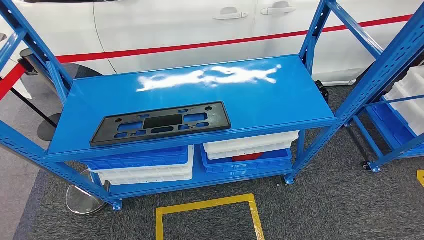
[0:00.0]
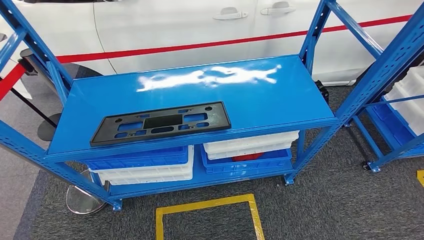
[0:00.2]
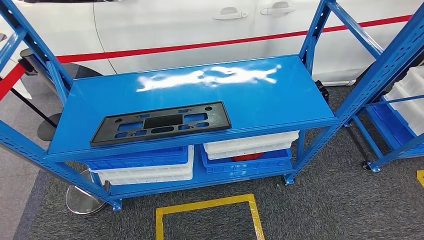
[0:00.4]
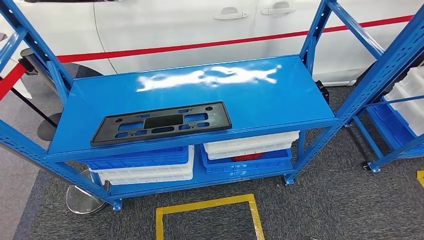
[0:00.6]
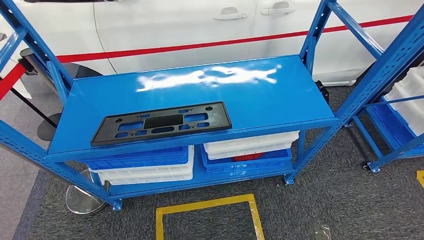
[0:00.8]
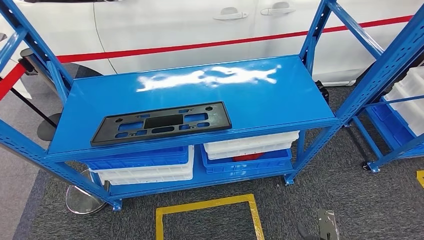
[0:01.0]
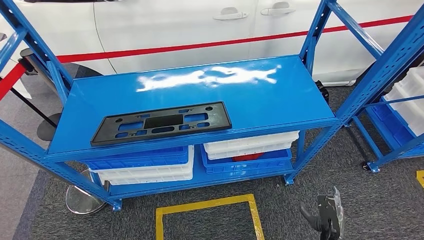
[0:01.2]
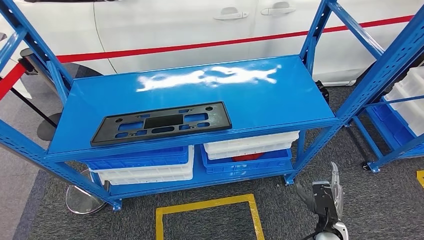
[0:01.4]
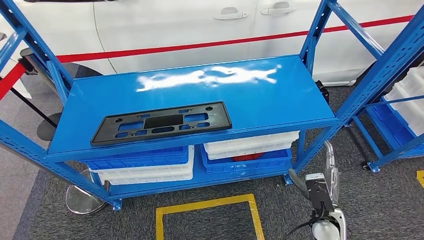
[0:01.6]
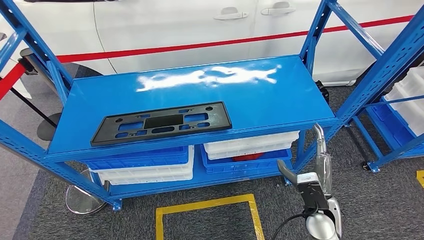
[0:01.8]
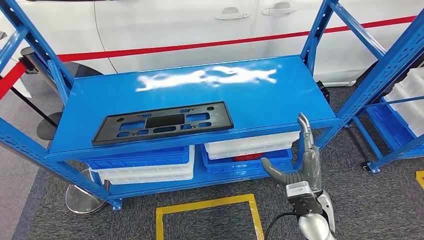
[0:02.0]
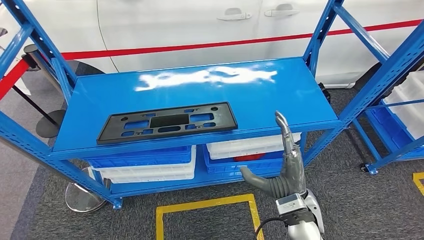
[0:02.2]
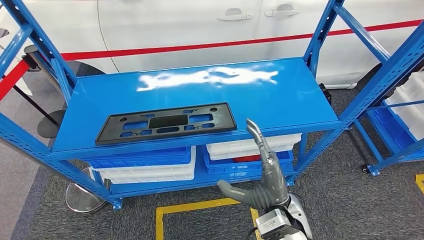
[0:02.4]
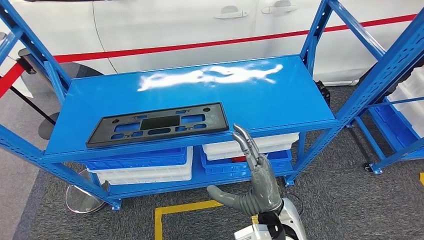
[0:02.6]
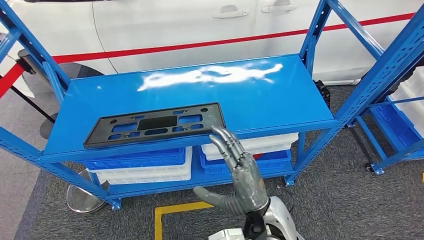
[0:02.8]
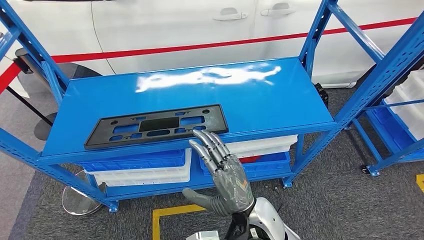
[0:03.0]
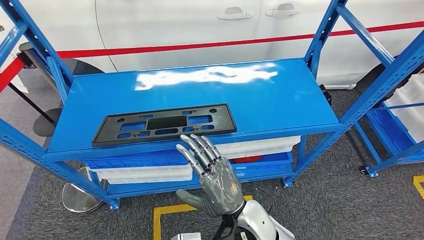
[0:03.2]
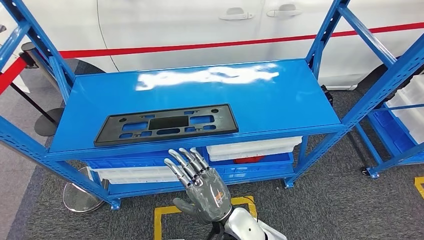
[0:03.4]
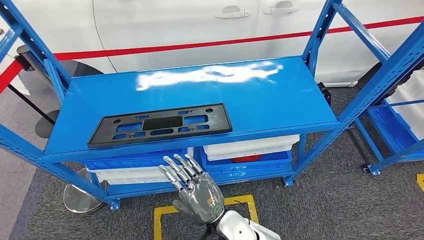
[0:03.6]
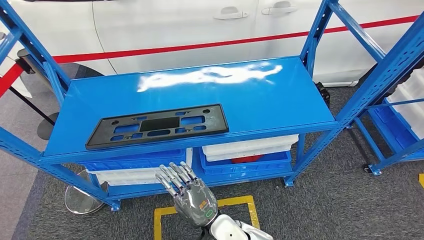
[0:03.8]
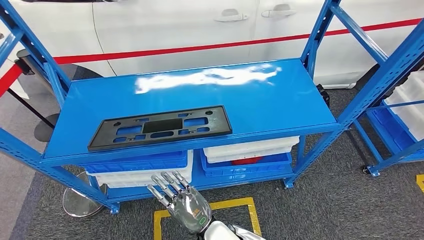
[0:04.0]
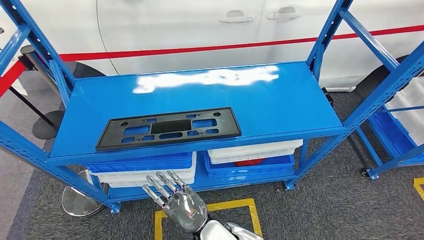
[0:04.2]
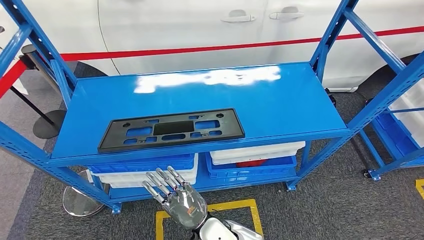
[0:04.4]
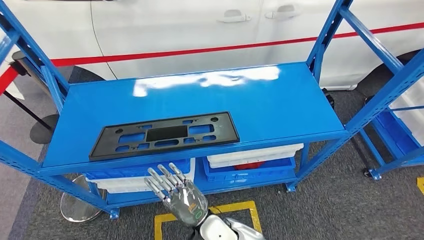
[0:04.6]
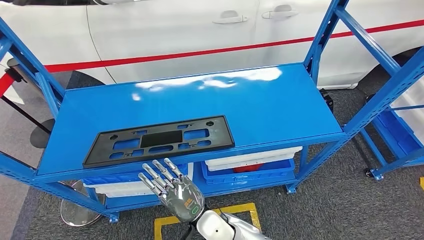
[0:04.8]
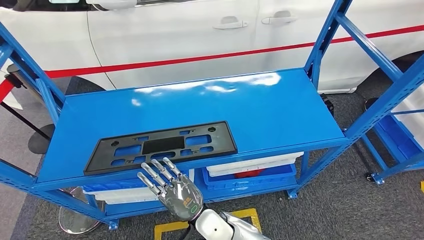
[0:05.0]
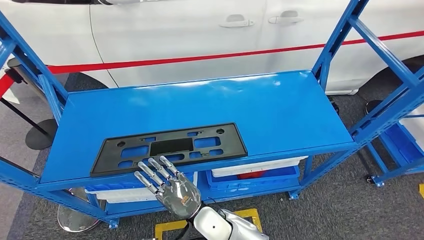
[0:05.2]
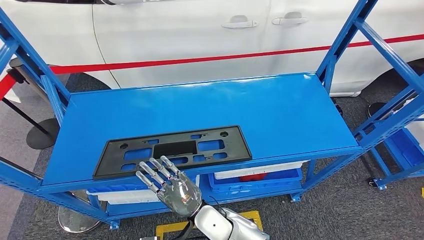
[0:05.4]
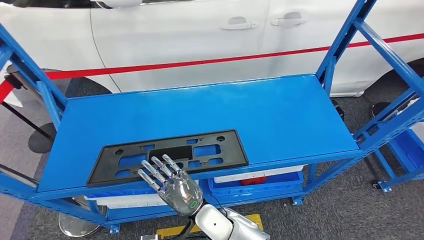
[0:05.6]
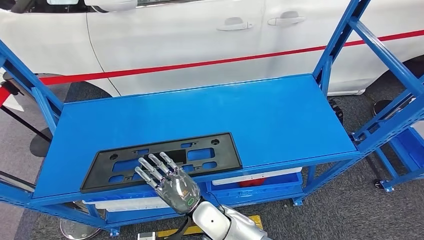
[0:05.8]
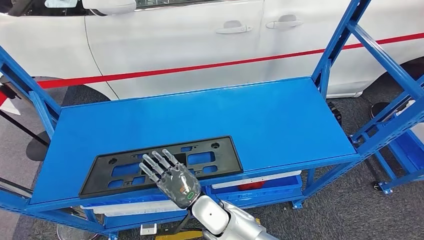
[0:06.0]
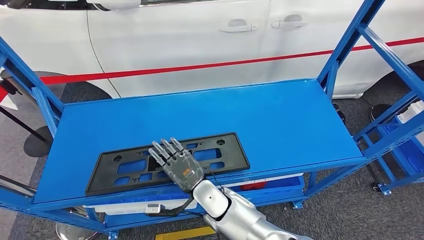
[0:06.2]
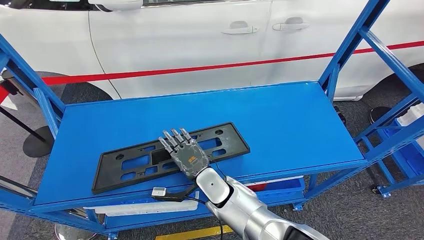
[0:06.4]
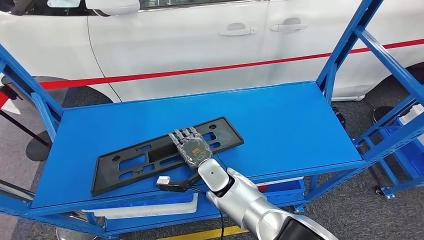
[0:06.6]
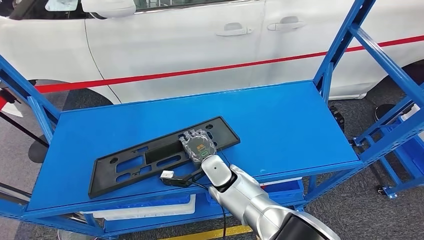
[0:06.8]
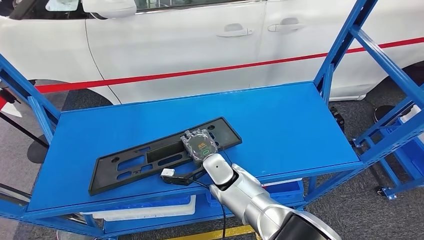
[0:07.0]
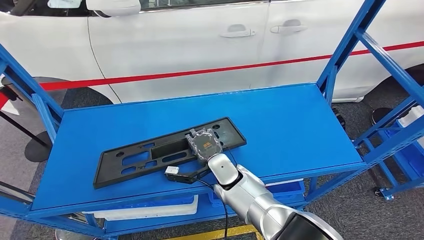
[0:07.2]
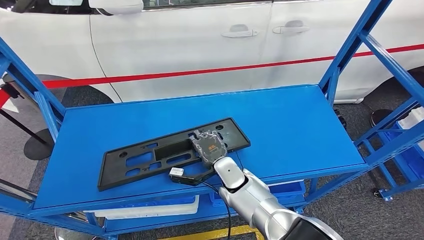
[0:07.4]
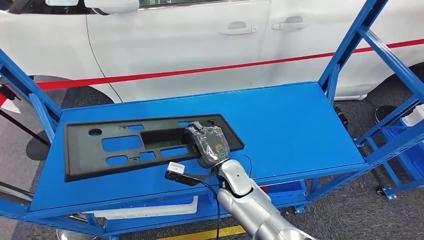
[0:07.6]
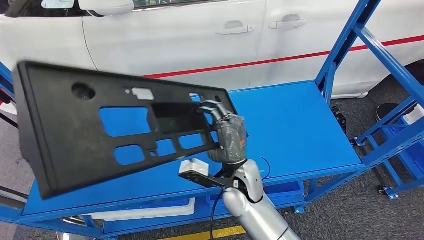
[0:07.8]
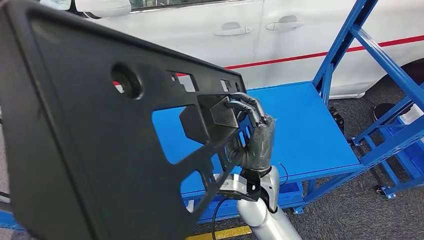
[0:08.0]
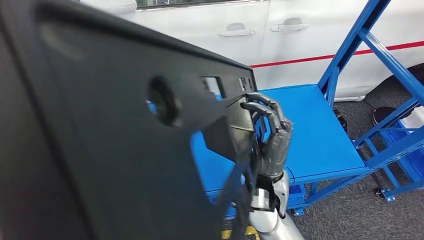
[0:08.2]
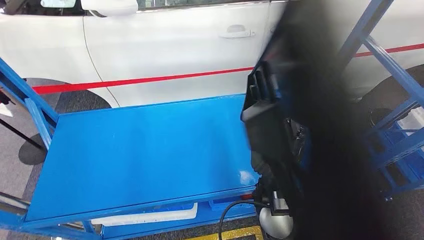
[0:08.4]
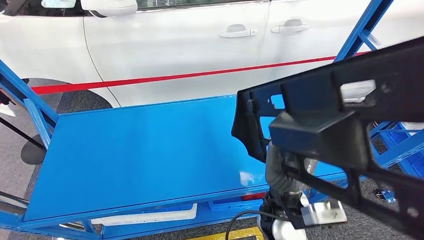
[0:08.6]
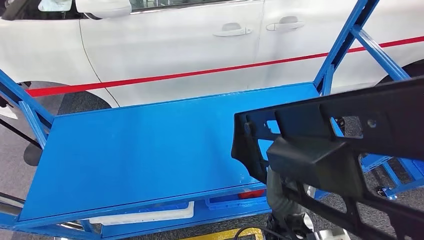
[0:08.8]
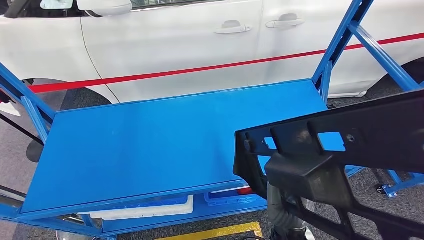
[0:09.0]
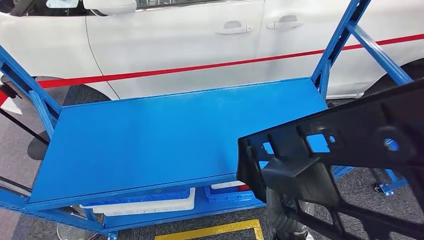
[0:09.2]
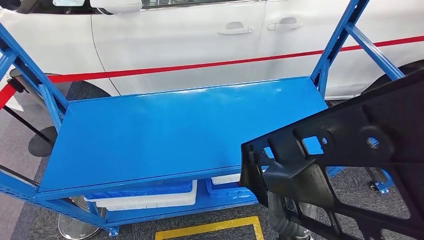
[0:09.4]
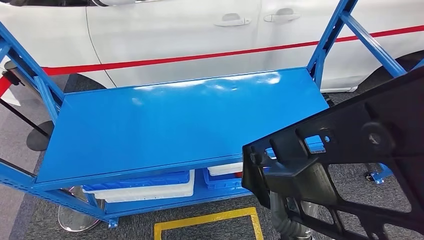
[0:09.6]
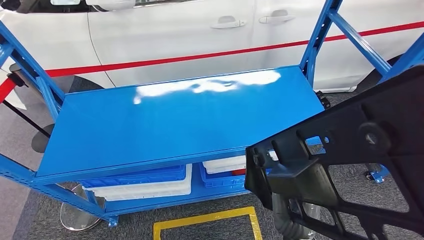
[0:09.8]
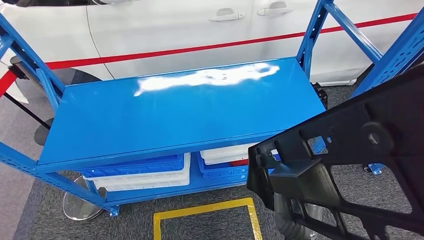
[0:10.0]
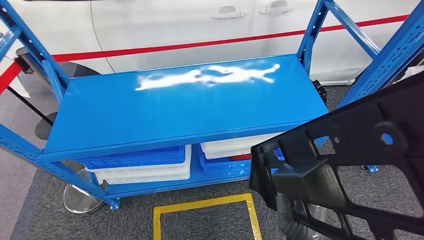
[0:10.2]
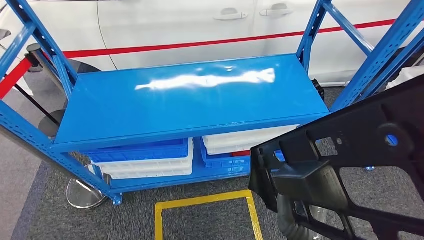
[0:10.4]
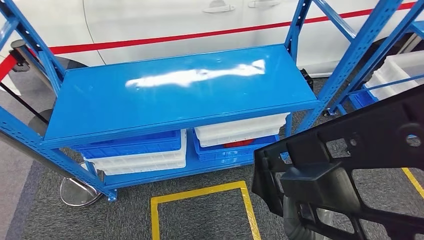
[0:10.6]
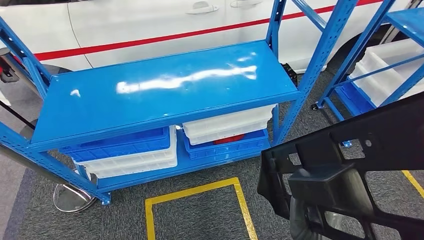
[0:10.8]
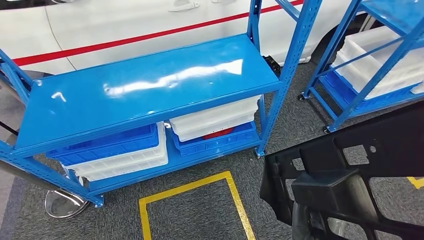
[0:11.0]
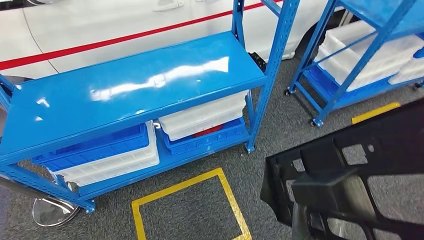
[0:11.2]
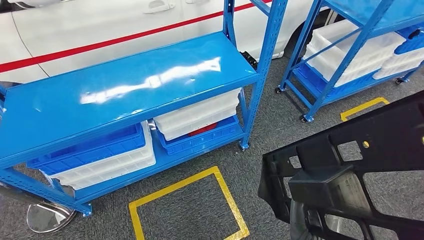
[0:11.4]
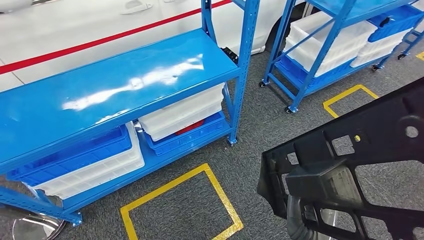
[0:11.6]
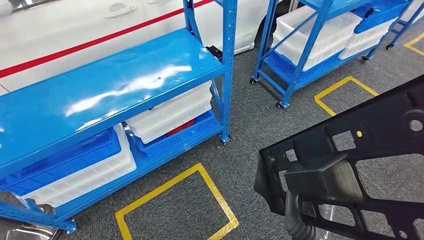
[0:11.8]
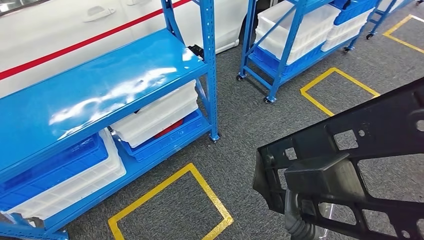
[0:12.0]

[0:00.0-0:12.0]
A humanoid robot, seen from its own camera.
Step, 0:00.0 to 0:09.4: Pick up the large material from the shelf.

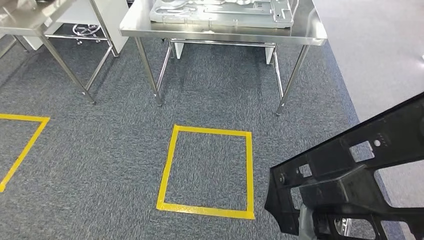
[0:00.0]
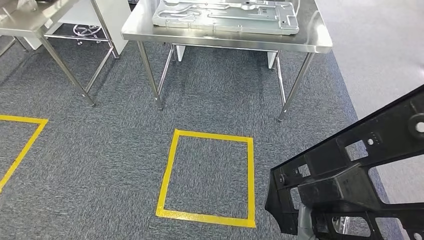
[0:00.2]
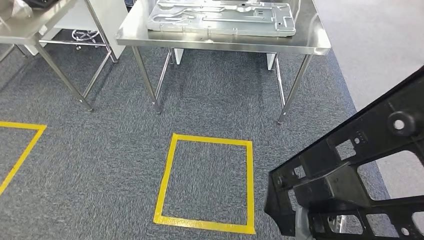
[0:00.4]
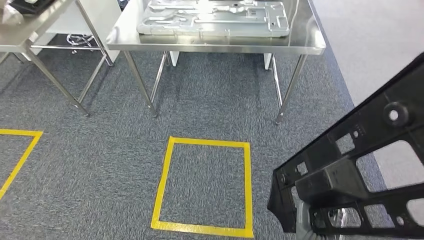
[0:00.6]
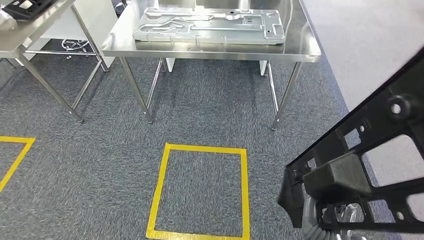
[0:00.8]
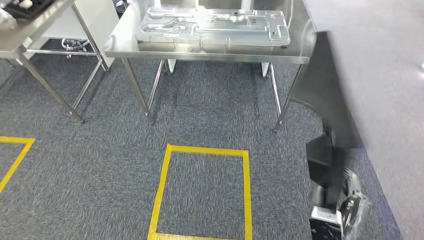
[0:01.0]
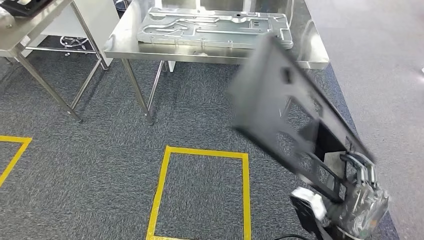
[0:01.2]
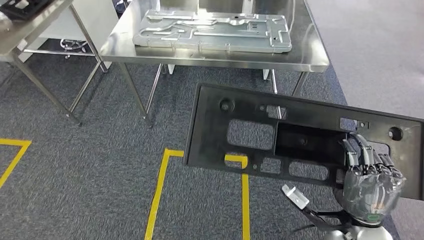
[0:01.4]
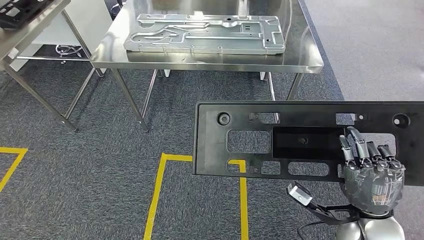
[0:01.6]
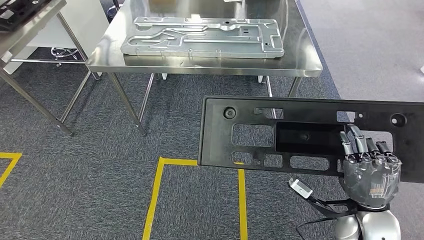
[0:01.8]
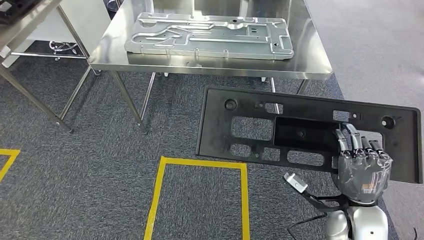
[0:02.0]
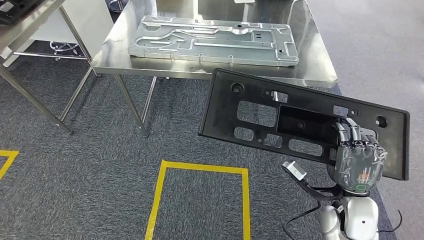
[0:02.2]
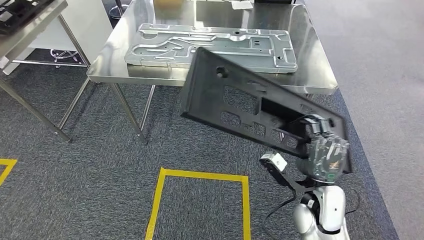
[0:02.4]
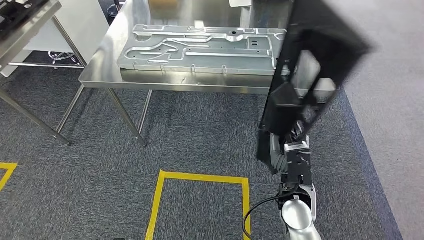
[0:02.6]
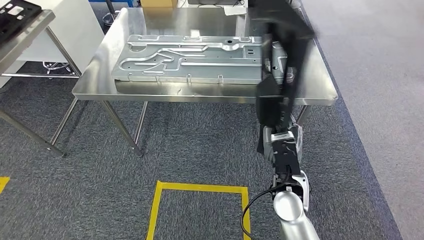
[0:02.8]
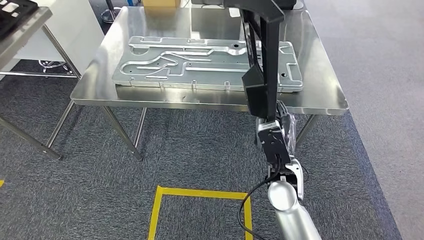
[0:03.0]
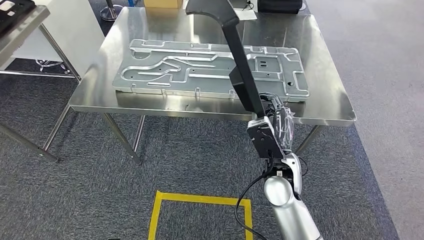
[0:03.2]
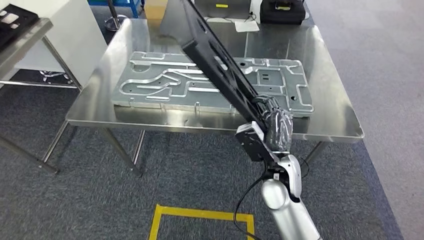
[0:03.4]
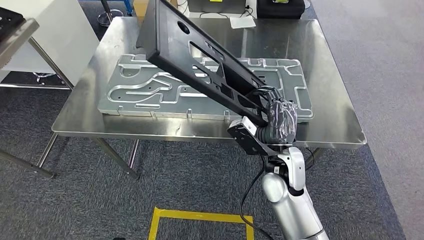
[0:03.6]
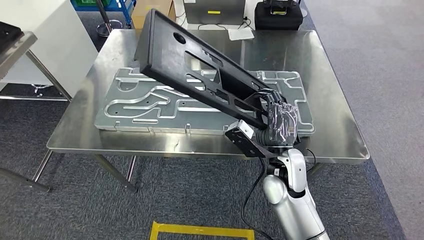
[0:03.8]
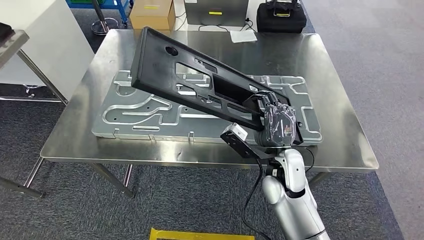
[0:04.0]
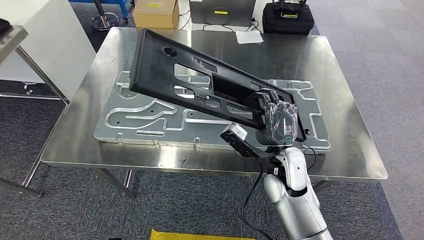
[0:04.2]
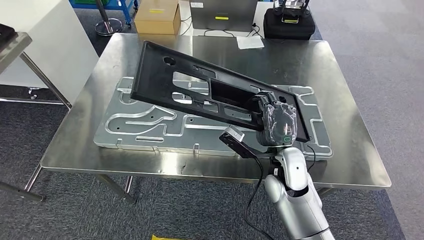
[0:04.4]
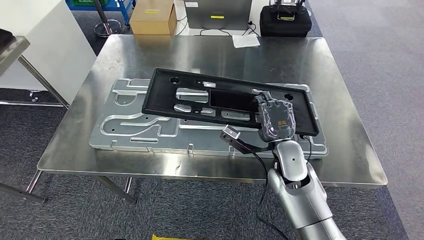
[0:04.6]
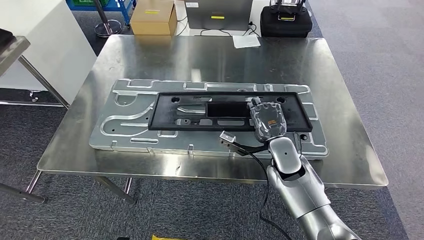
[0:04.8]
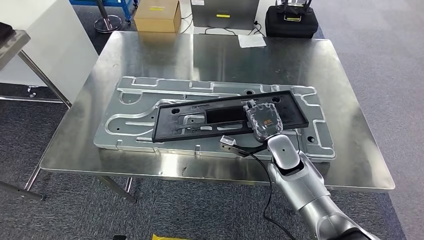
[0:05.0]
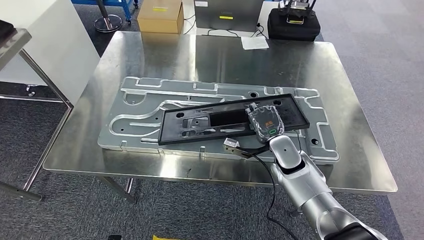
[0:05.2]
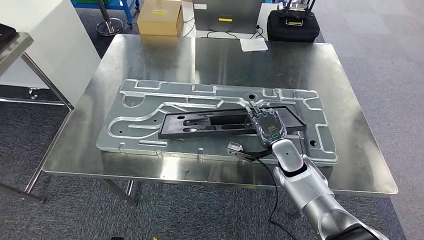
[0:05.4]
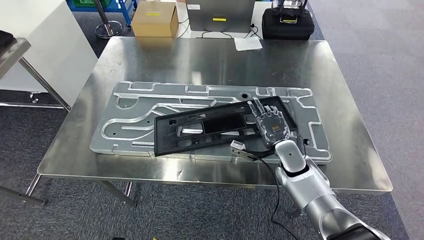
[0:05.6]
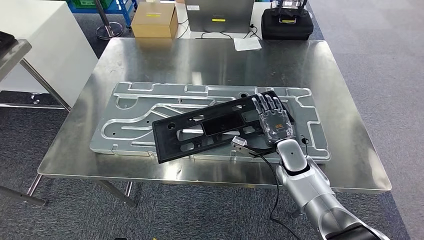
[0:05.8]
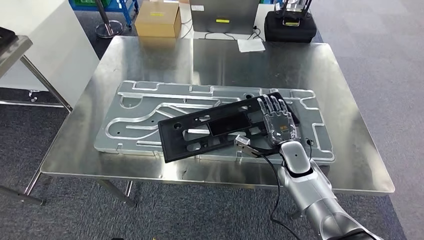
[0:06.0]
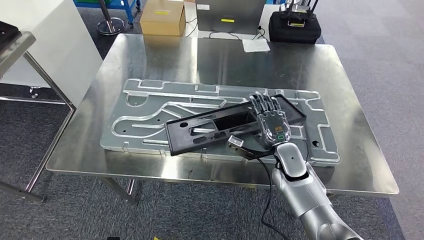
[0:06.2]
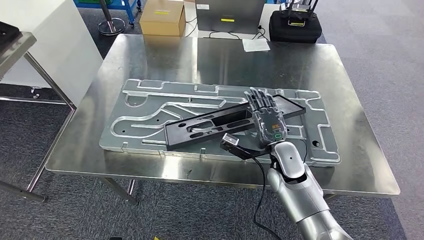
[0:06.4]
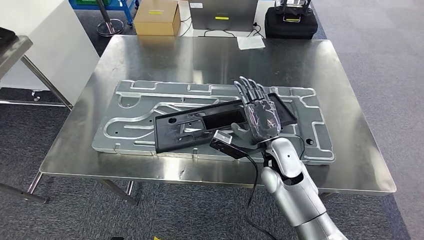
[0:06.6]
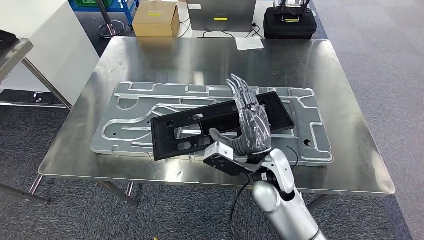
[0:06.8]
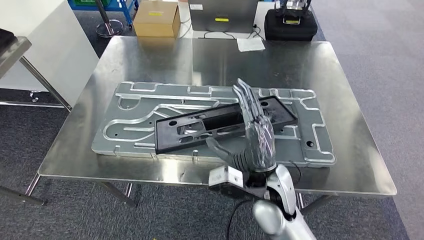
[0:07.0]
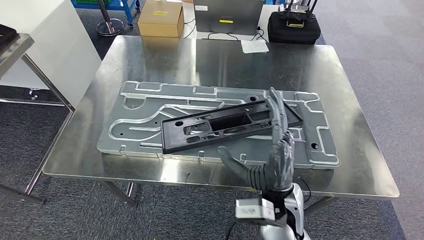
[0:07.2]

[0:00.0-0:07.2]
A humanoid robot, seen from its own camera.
Step, 0:00.0 to 0:03.8: Move the large material to the workbench.
